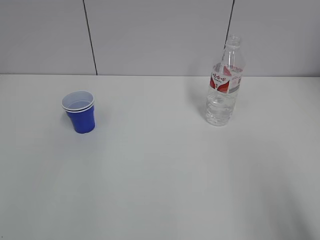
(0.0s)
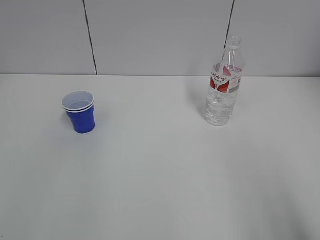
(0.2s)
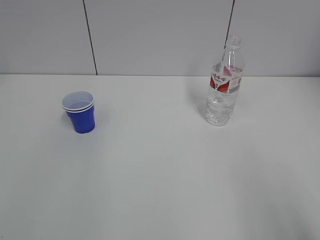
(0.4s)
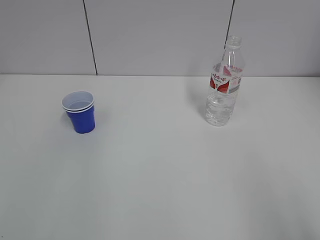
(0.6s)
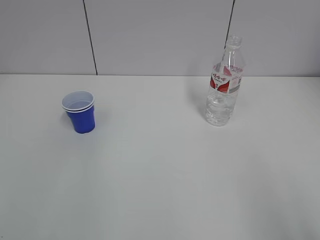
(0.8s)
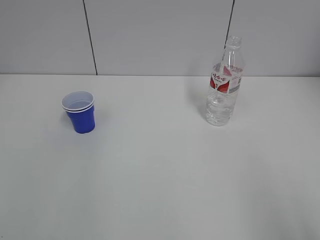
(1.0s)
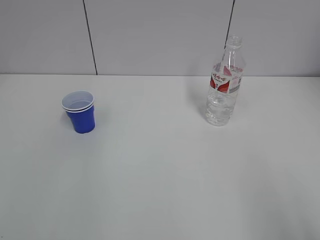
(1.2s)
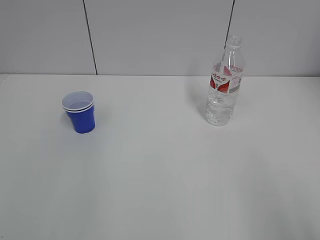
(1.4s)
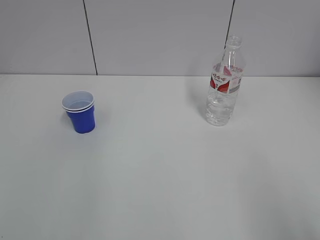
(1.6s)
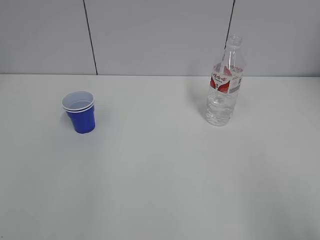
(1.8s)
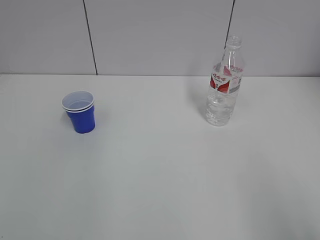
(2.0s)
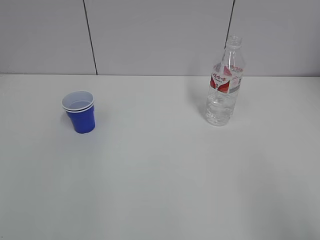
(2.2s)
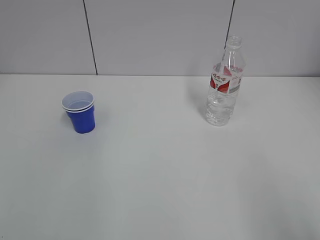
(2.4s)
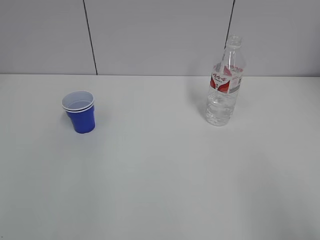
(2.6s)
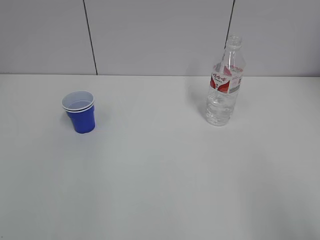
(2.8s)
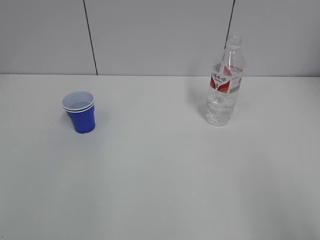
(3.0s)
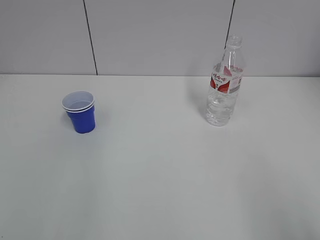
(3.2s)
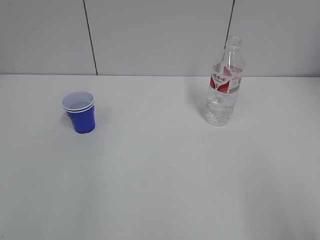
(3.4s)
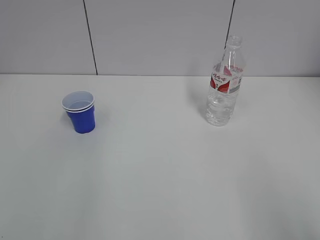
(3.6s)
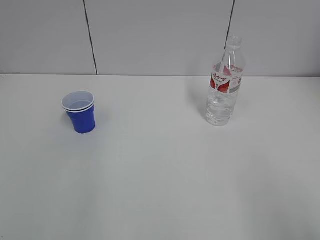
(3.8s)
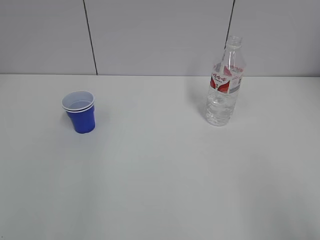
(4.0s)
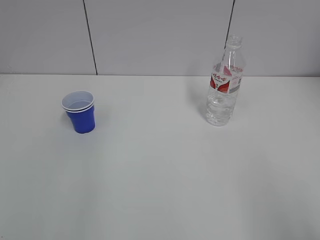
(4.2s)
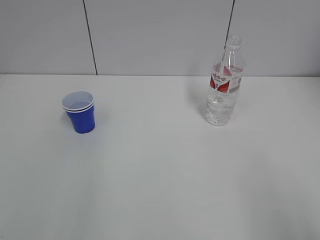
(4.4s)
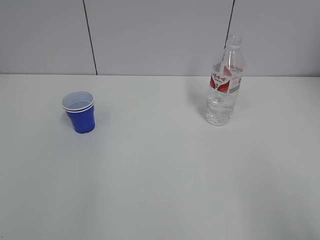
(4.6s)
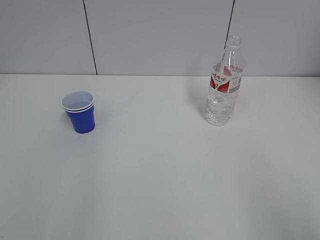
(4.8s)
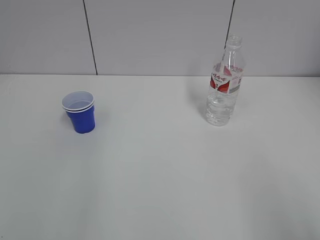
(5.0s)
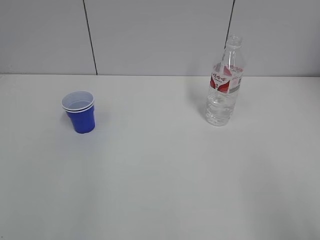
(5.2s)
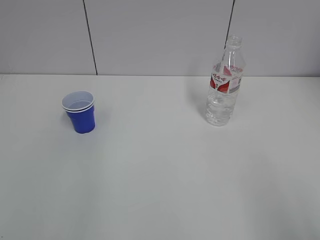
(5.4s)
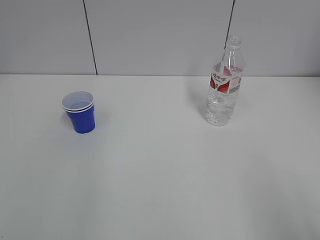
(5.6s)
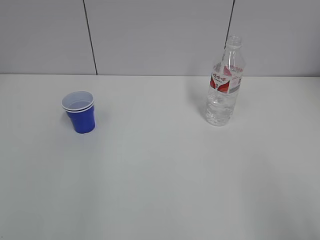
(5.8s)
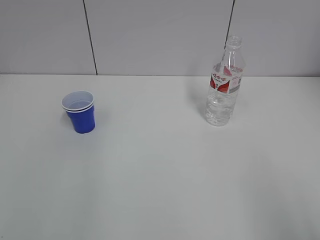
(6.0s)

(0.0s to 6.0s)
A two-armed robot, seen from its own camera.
1.6s - 3.0s: Neither gripper changes place.
4.4s - 6.0s: Both grippers stay about where they are.

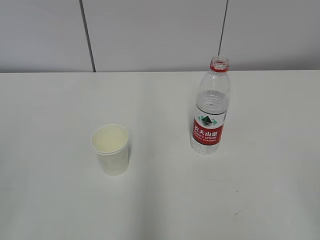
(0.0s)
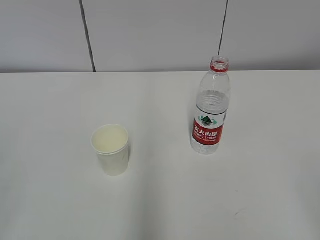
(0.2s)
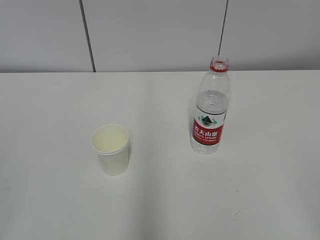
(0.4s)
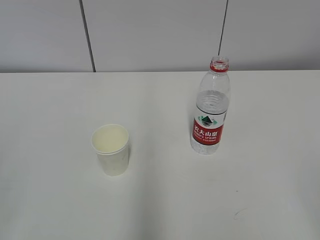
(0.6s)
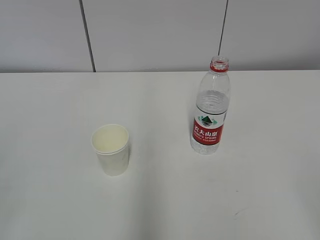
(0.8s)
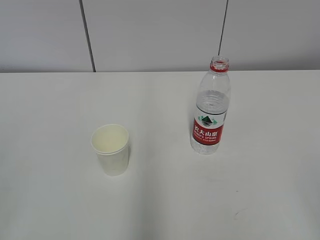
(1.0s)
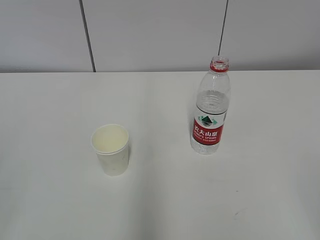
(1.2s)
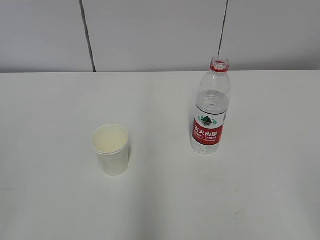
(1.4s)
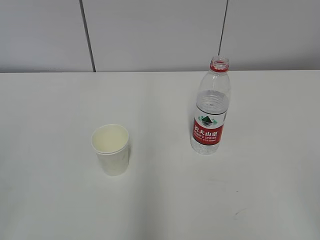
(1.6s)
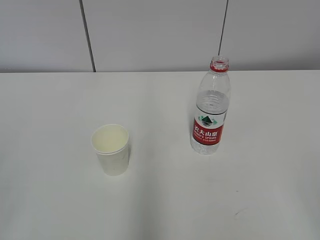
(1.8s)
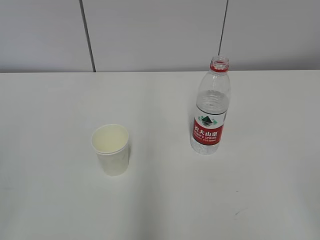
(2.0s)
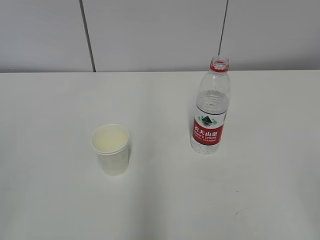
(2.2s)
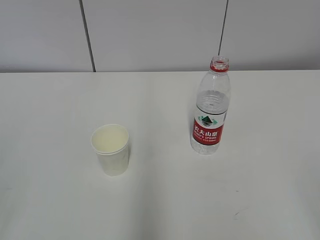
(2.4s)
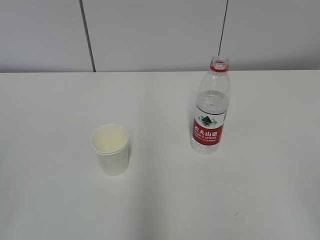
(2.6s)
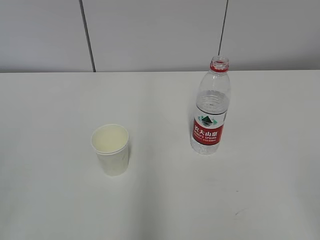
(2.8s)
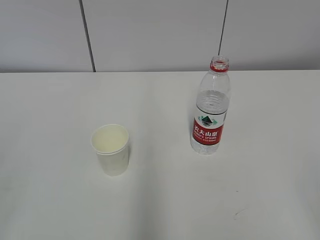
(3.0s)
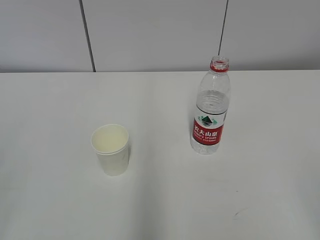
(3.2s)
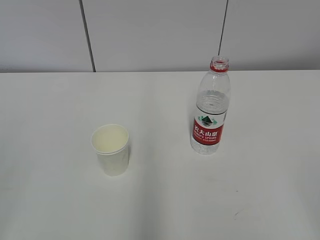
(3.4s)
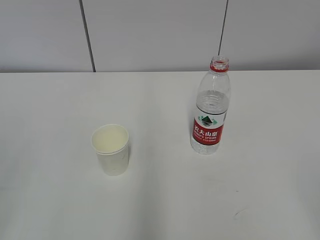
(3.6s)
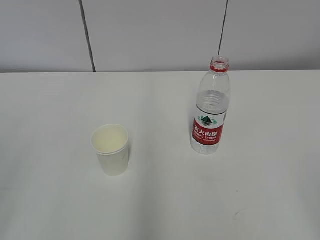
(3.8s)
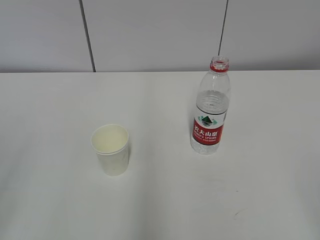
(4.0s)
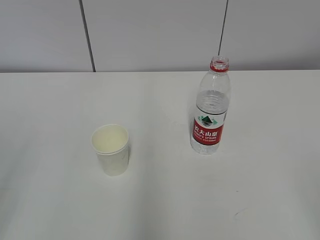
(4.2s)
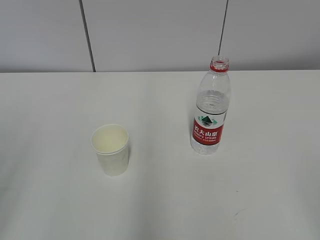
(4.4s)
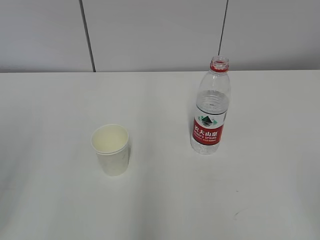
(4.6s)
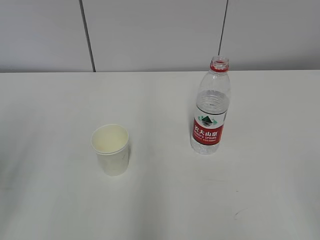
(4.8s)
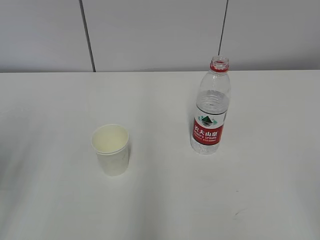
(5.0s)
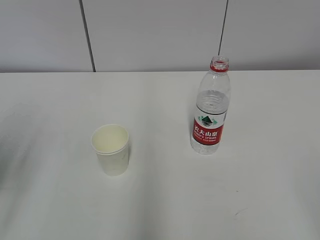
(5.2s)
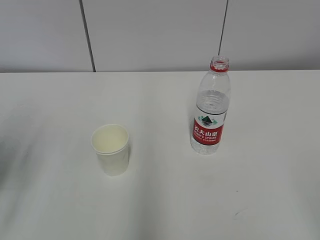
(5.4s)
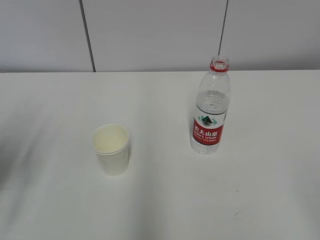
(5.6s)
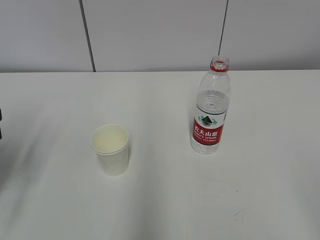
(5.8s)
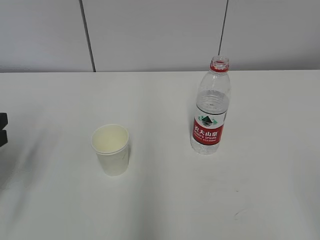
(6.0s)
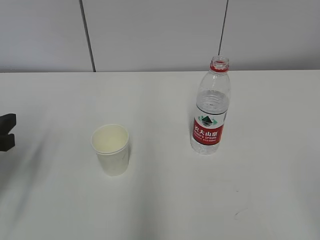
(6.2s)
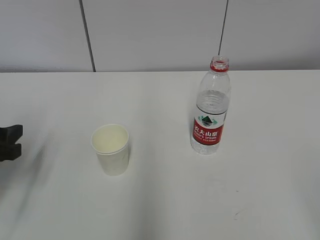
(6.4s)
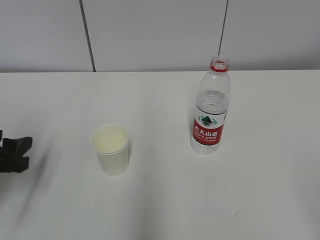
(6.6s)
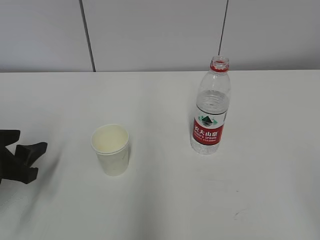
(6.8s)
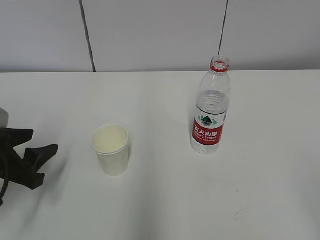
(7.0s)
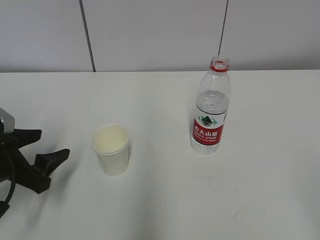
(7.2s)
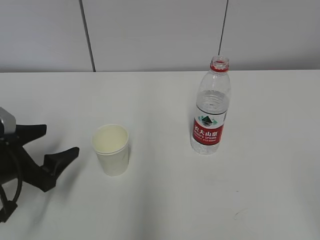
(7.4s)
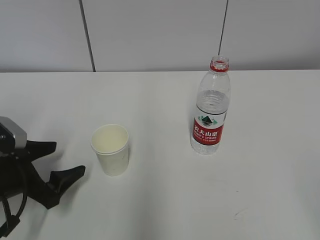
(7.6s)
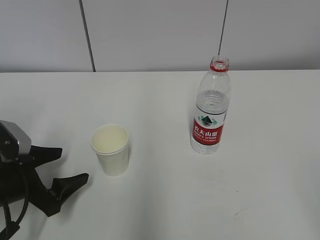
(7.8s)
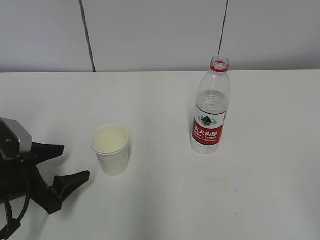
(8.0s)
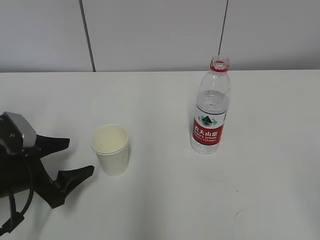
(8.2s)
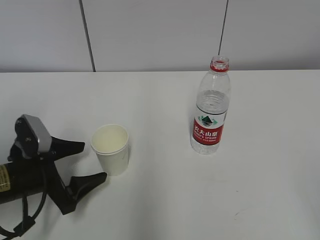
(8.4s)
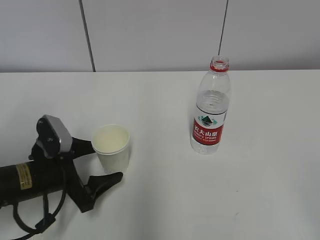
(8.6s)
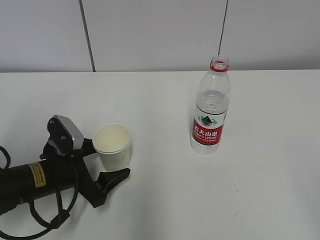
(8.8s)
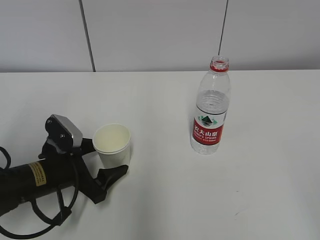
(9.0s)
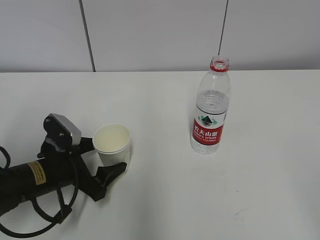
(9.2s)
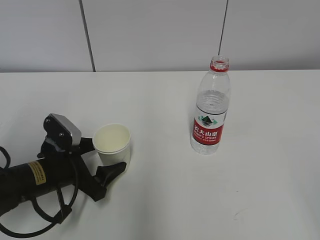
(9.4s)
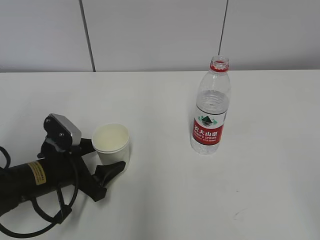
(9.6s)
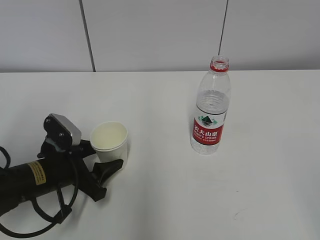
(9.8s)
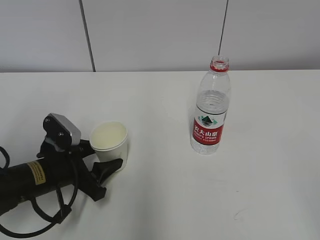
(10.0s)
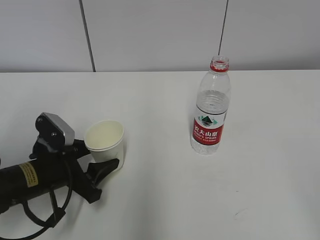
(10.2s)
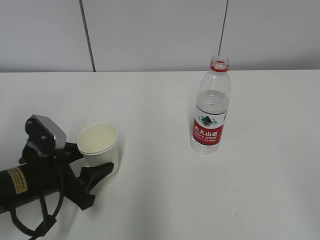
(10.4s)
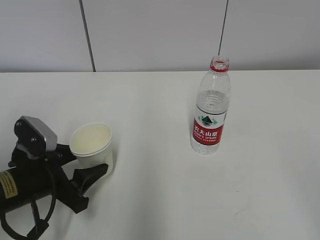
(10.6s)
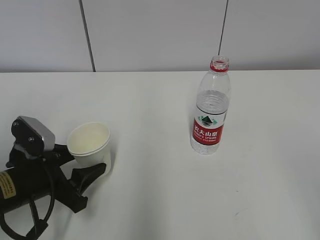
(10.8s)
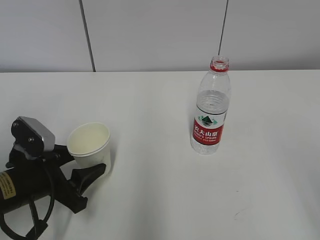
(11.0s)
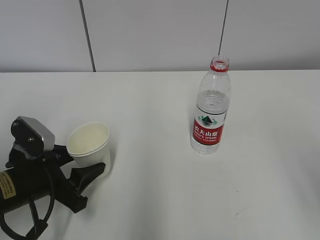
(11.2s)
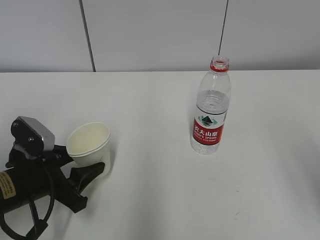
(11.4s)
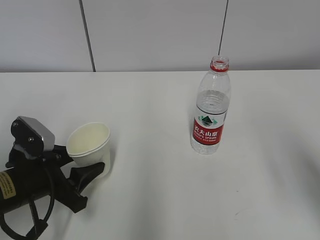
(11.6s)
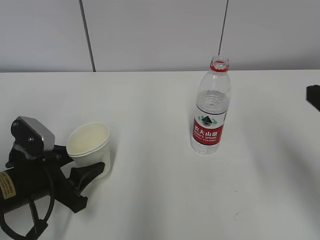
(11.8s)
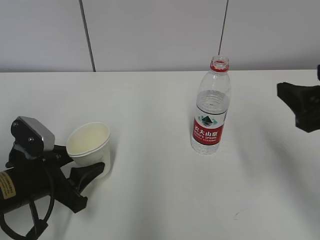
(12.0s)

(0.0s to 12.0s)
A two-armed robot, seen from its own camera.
Step, 0.0s - 8.2s: Grab the paper cup with the left hand.
1.6s - 3.0s: The two grippers keep their place.
4.4s - 6.0s: The left gripper goes roughly 15 cm forward and downward.
6.0s - 7.6s: The left gripper travels downward by about 10 cm, and opens.
7.6s - 9.0s: The left gripper shifts some 5 cm to the right.
9.0s - 10.4s: The left gripper closes.
10.4s - 12.0s: The right gripper moves forward, some 20 cm.

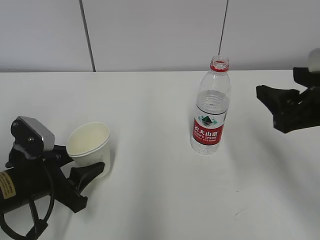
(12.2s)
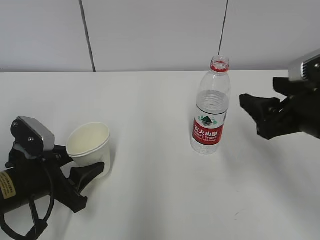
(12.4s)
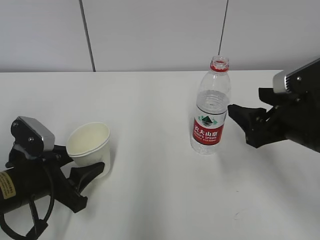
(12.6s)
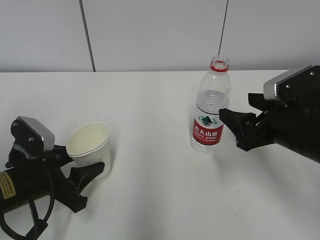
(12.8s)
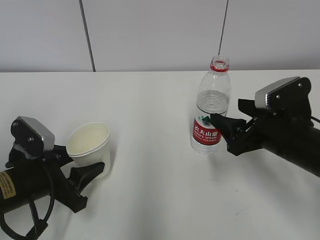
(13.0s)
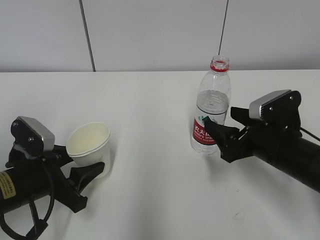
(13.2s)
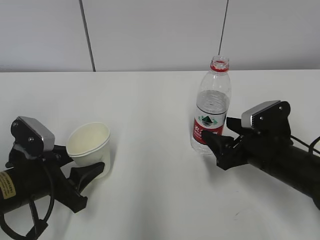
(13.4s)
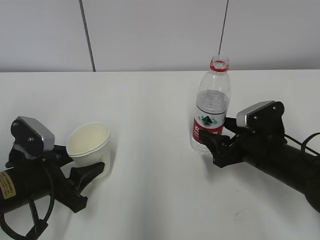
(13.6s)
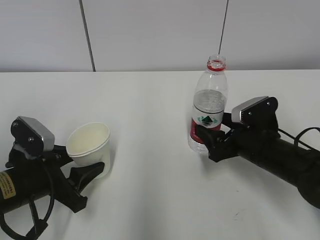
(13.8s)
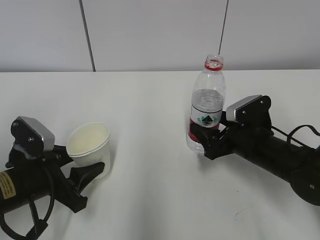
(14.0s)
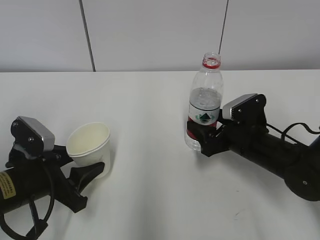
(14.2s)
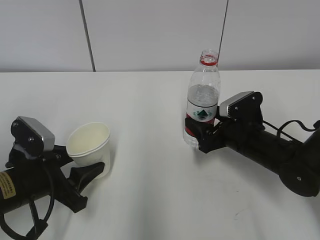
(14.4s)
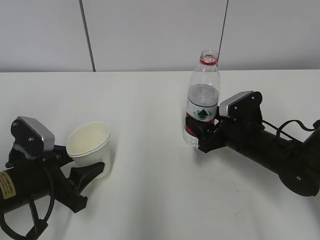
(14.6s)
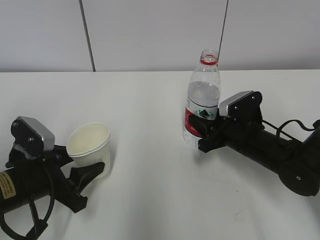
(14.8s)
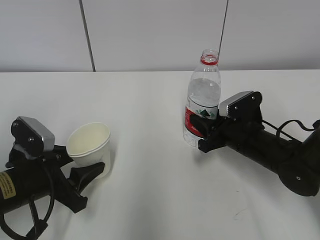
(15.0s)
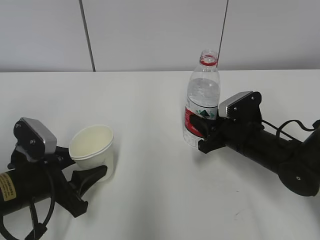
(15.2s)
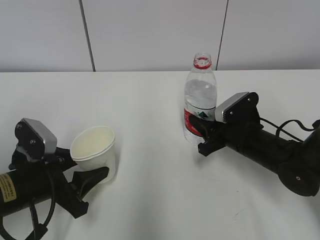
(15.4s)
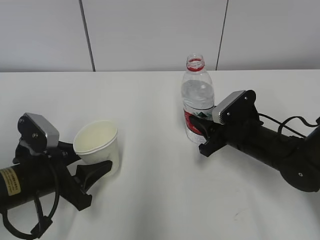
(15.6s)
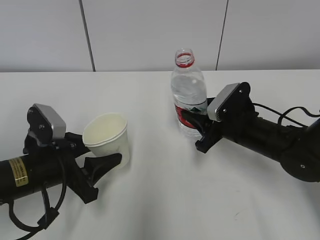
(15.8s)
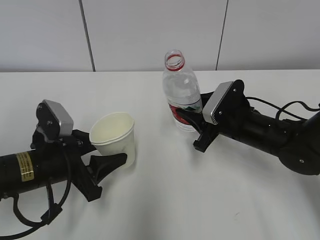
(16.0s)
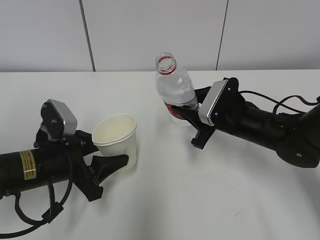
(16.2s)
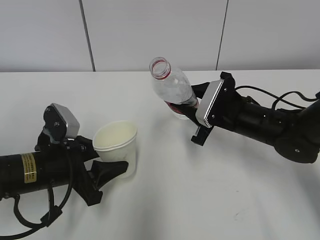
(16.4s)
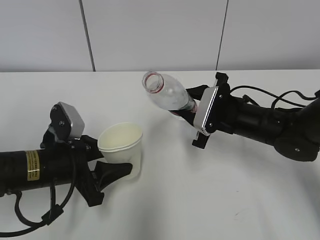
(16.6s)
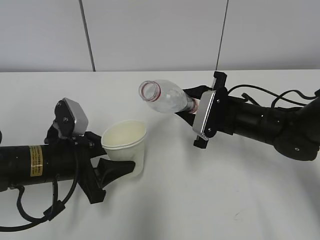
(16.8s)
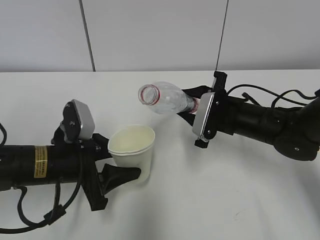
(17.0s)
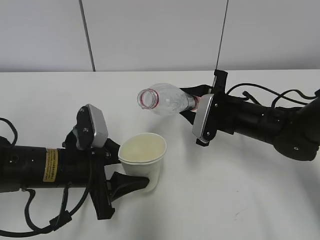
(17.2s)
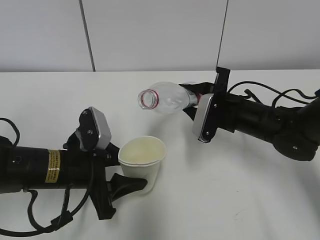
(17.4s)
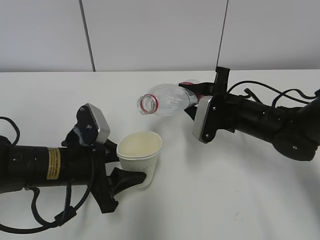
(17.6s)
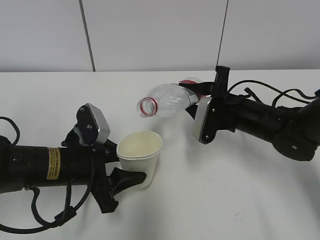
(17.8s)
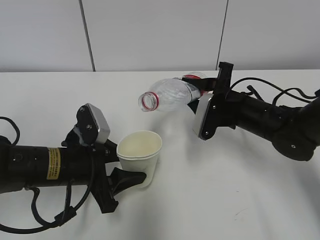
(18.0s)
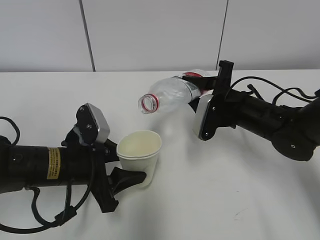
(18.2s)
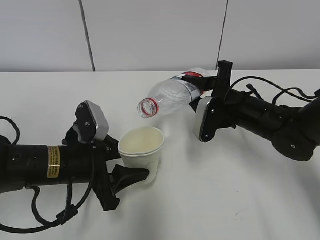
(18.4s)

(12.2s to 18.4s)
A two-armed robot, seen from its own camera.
Step, 12.8s - 16.0s: Lift the paper cup with the left hand.
Step, 16.2s - 18.0s: Fill water with the left hand.
Step, 16.2s - 18.0s: Pour water with the right hand.
12.2s - 13.8s: The right gripper shifts some 15 cm downward and forward.
13.8s - 15.4s: The right gripper closes its fingers.
15.4s - 16.8s: The right gripper ends up roughly 5 cm from where it was. The left gripper moves some 5 cm.
